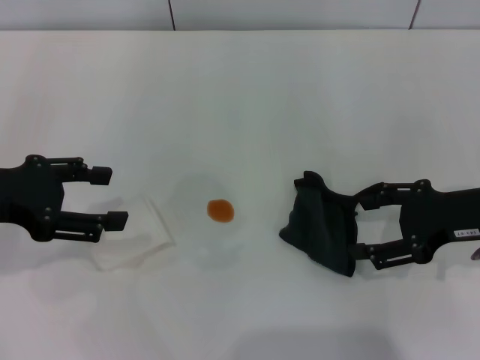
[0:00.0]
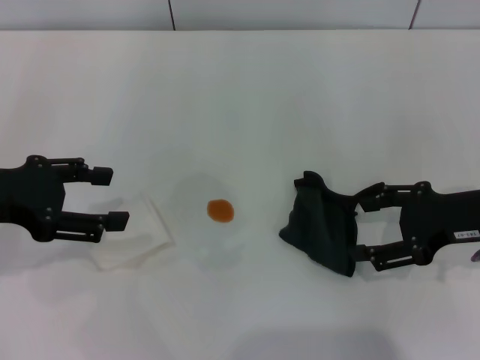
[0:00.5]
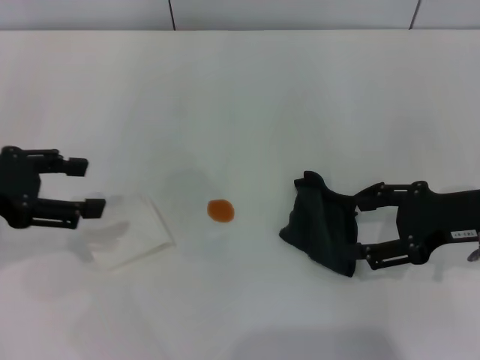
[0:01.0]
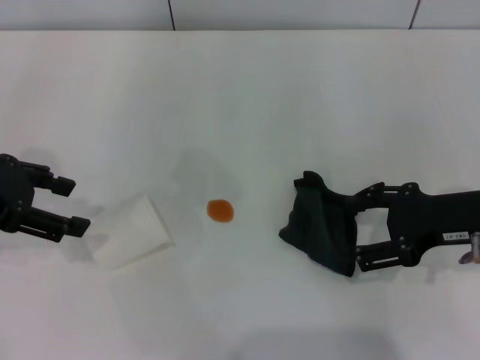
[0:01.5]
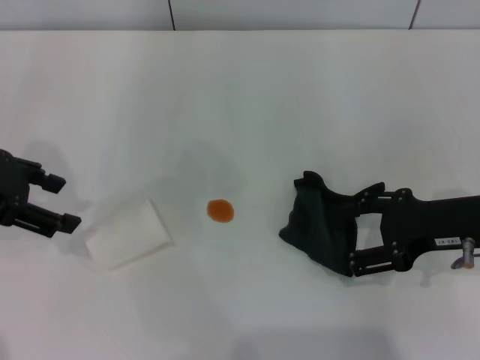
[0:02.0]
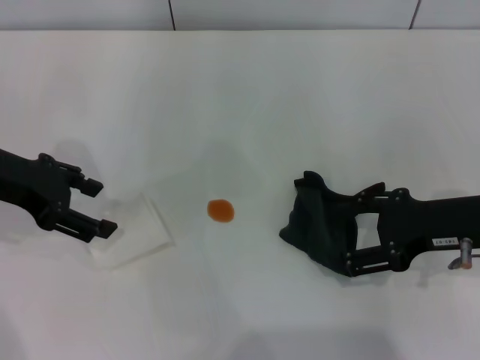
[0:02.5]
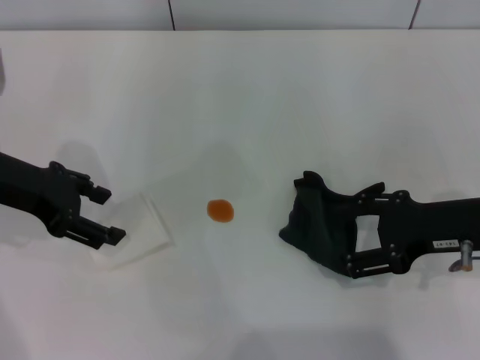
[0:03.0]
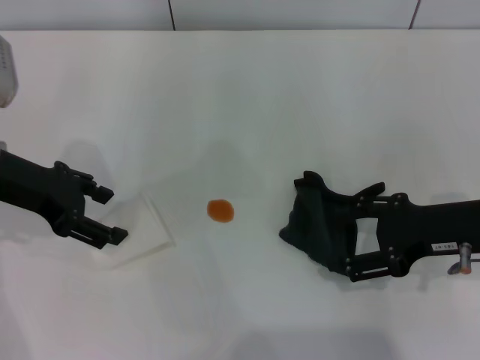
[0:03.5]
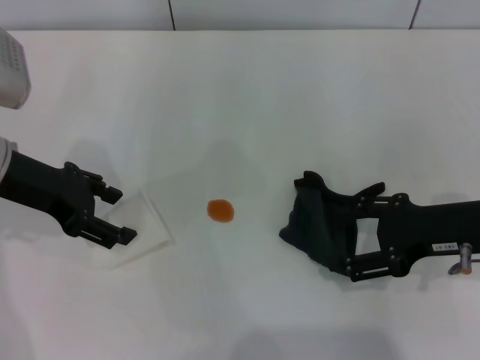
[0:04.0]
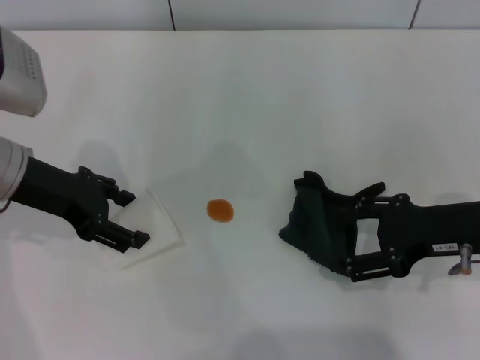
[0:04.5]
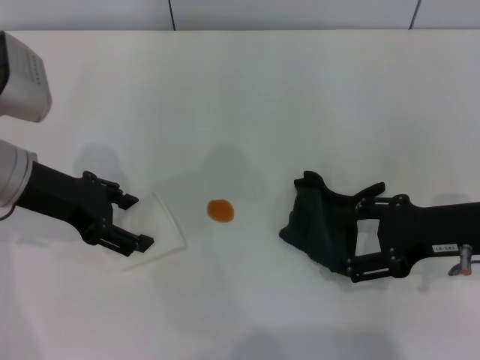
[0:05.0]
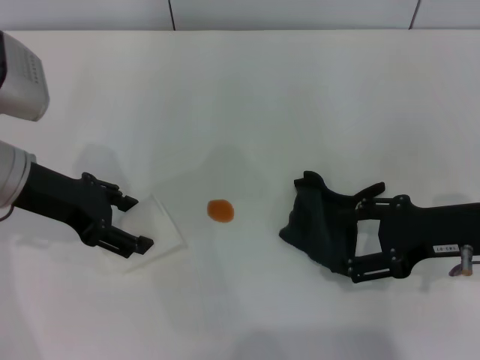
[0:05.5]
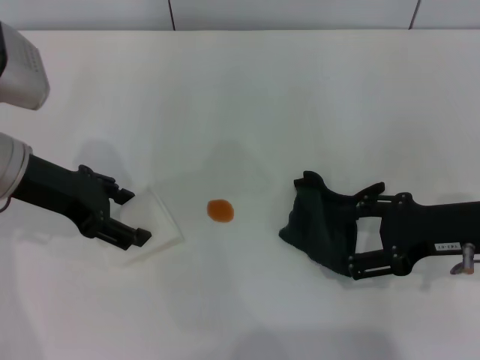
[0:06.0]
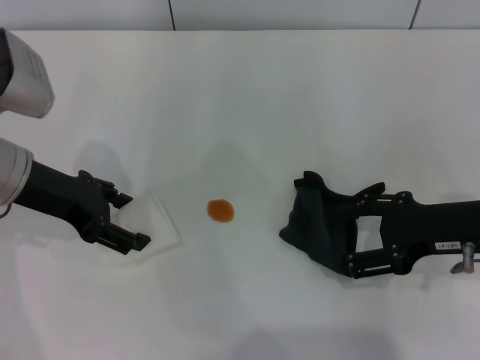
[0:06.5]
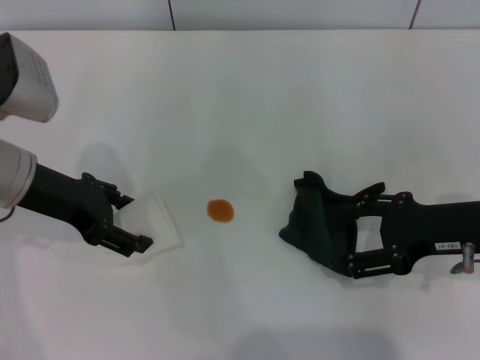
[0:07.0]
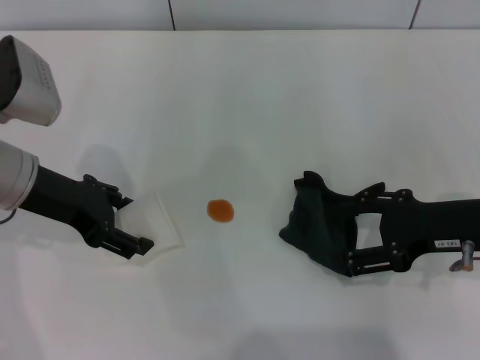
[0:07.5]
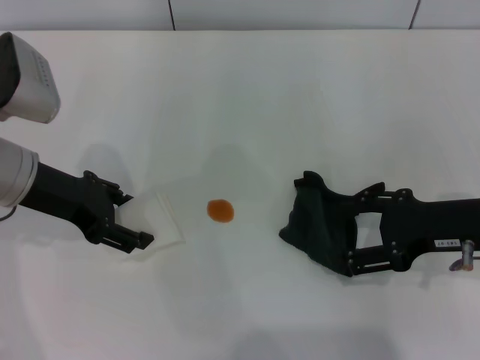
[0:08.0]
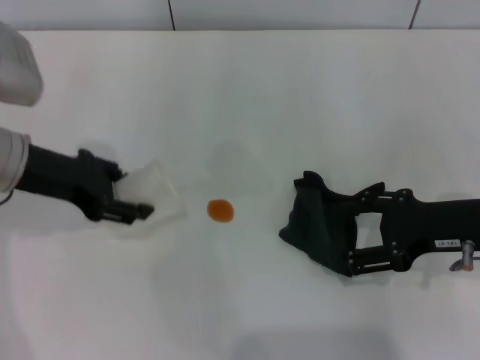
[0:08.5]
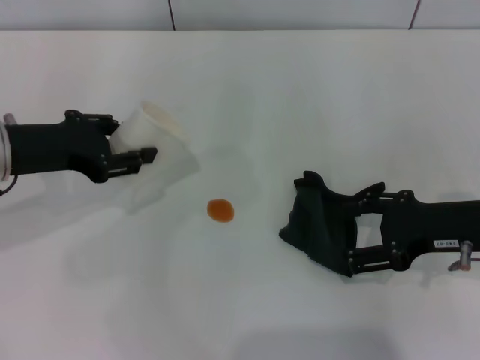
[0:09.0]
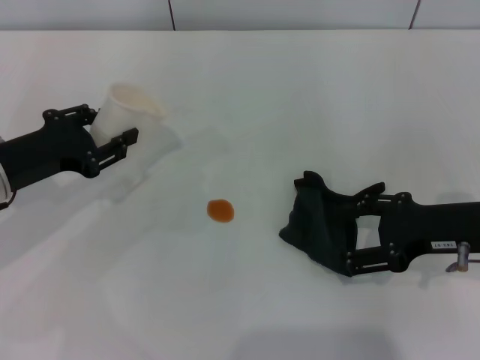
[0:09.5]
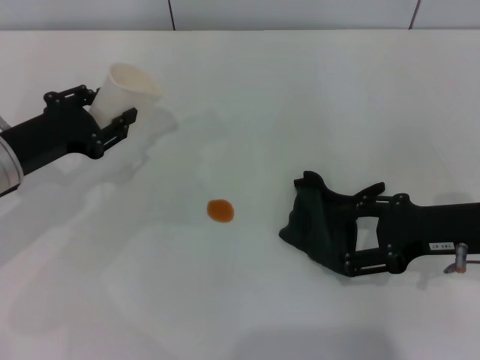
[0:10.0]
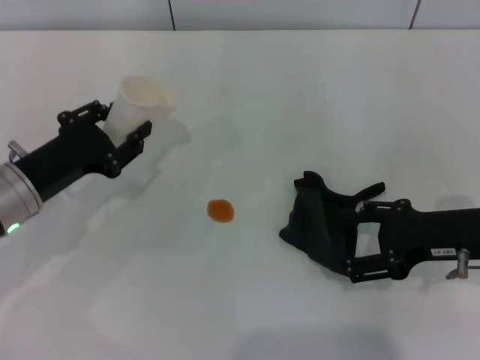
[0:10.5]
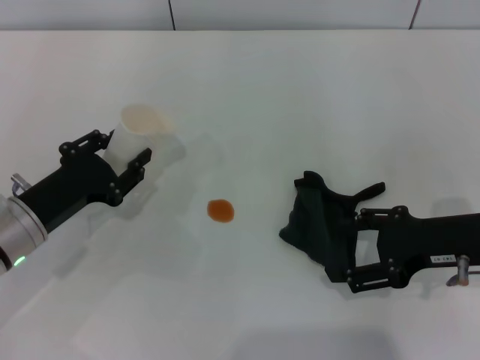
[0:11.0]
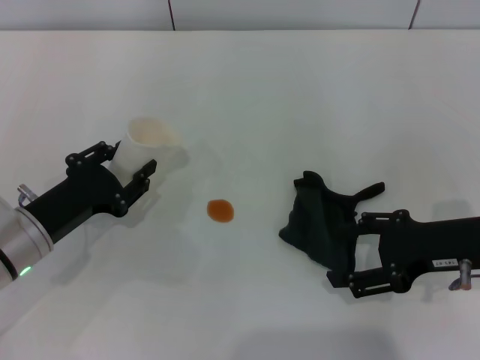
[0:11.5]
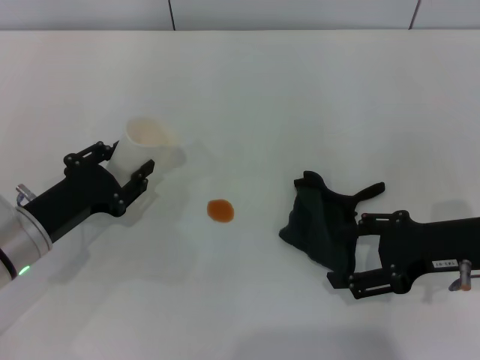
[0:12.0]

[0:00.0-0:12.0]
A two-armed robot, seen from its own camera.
Step, 0:00.0 to 0:05.5: Grasp the paper cup with the left gripper.
0:00.0 to 0:02.0: The left gripper moves about 5 cm.
0:02.0 to 0:04.0: The left gripper is displaced to the right by about 5 cm.
0:04.0 to 0:06.0: There are only small adjustments of the grippers.
0:06.0 to 0:08.0: Both grippers stay about where they are.
0:08.0 to 0:10.0: The left gripper heads downward, covering approximately 5 cm, and closes its fingers.
0:10.0 to 0:12.0: The left gripper travels backward and downward by roughly 10 cm.

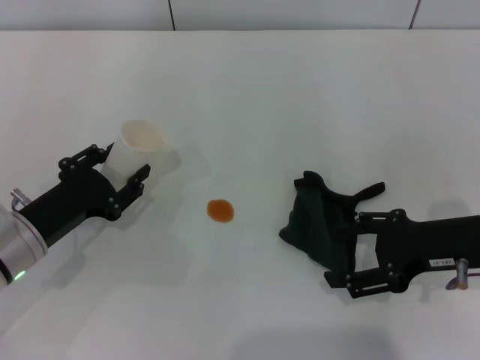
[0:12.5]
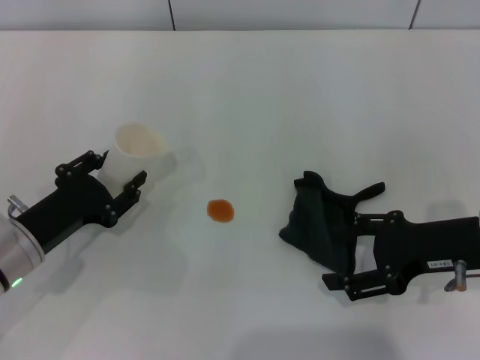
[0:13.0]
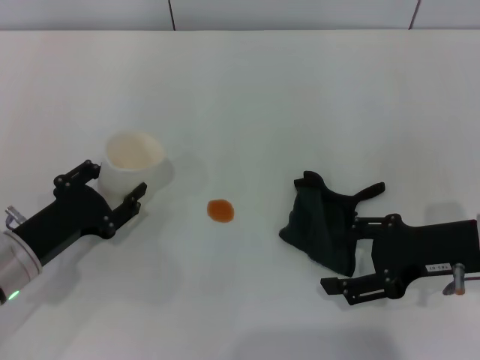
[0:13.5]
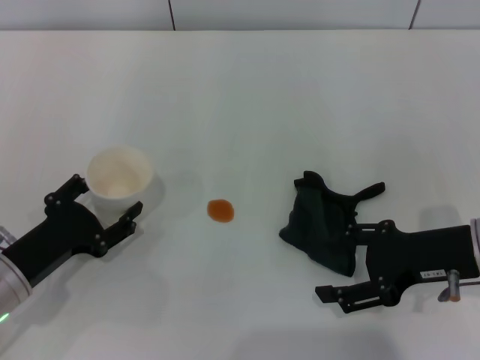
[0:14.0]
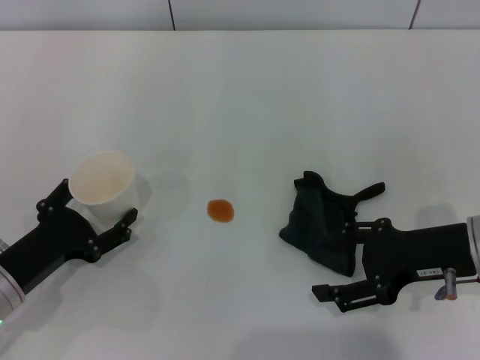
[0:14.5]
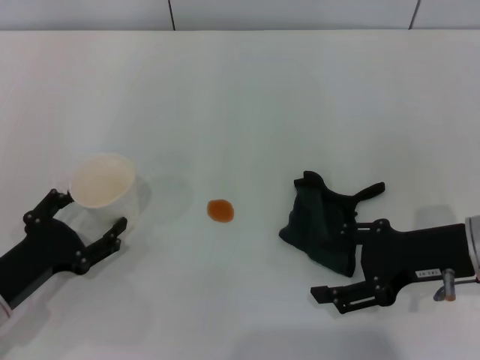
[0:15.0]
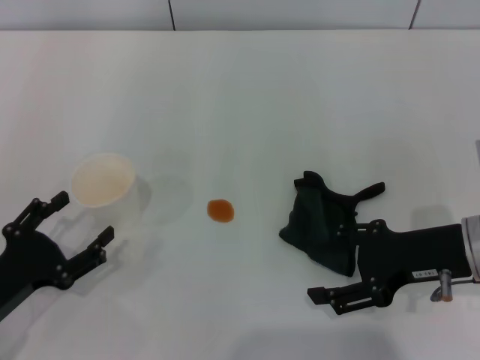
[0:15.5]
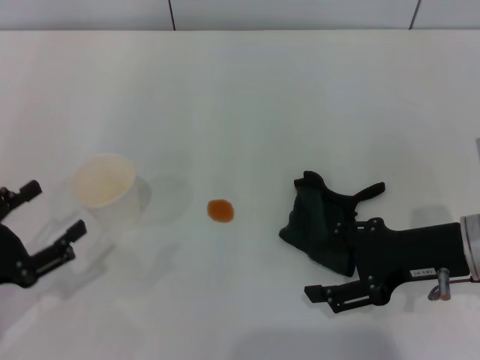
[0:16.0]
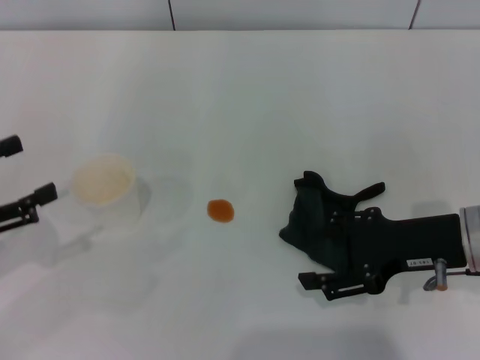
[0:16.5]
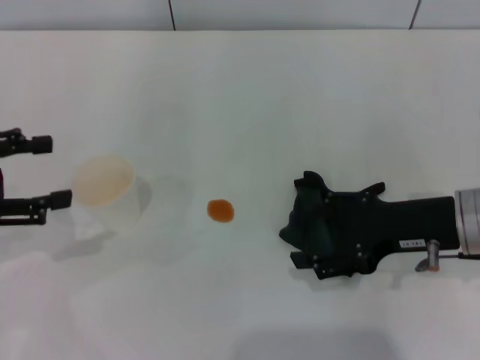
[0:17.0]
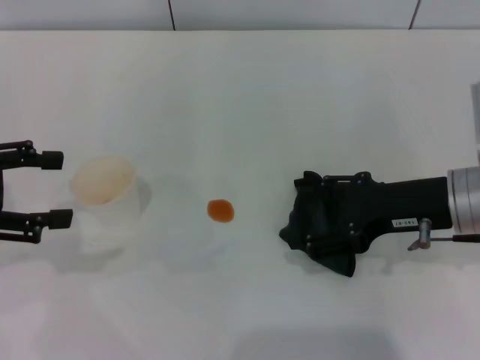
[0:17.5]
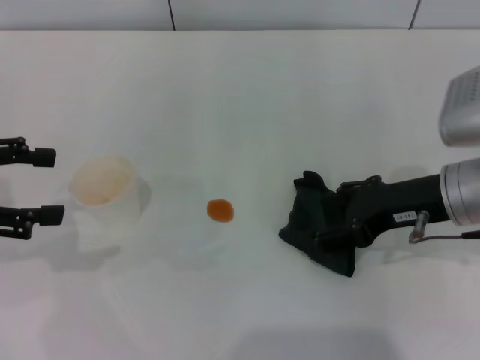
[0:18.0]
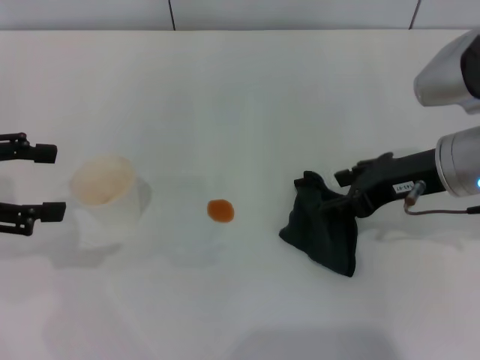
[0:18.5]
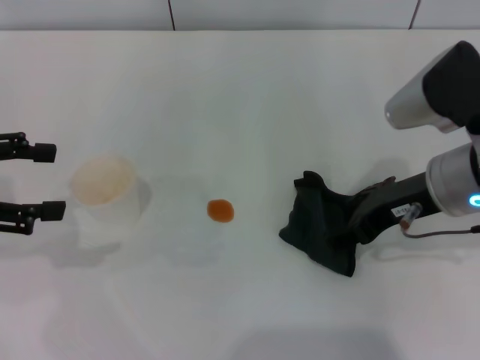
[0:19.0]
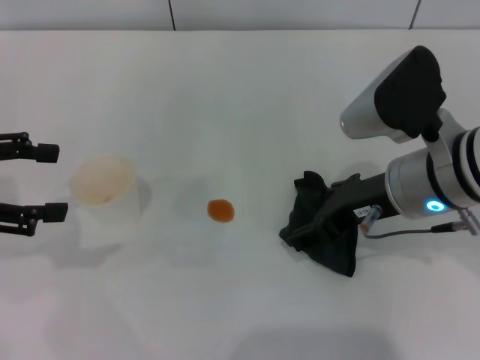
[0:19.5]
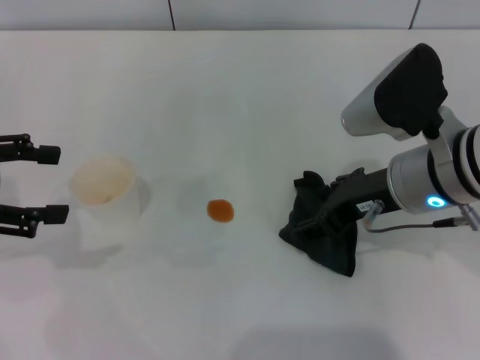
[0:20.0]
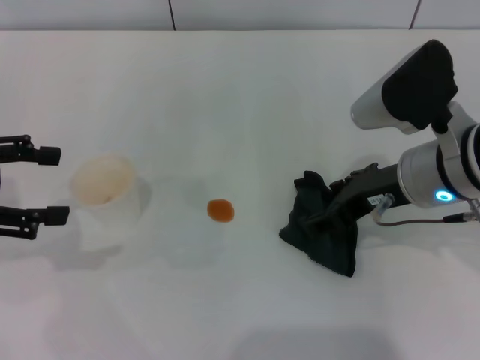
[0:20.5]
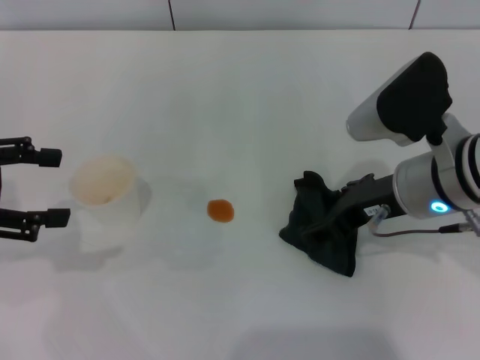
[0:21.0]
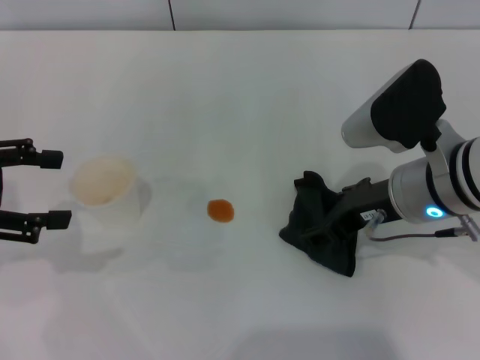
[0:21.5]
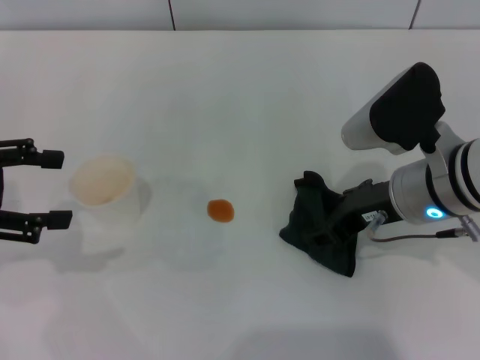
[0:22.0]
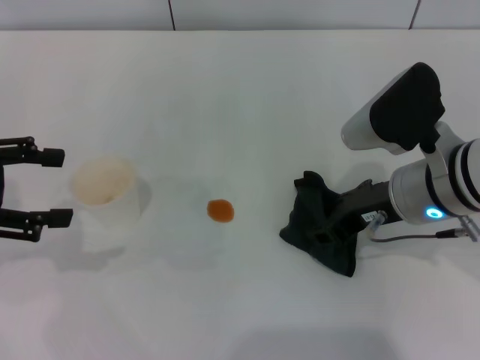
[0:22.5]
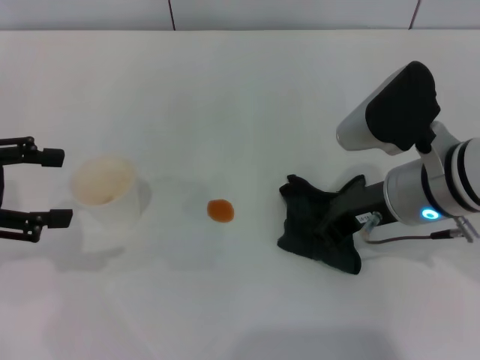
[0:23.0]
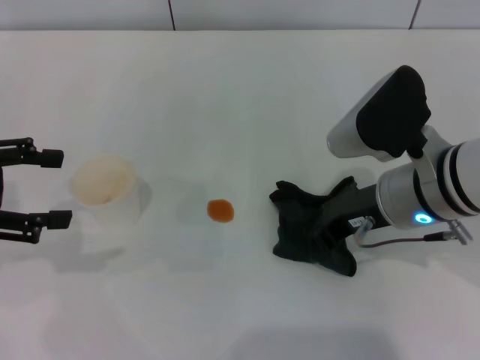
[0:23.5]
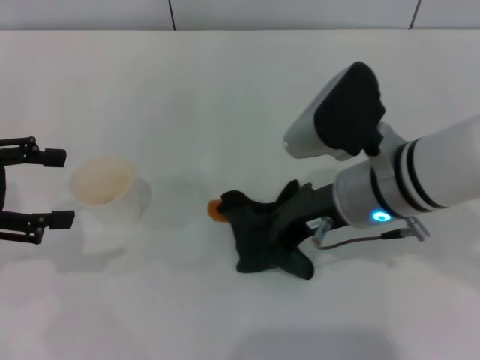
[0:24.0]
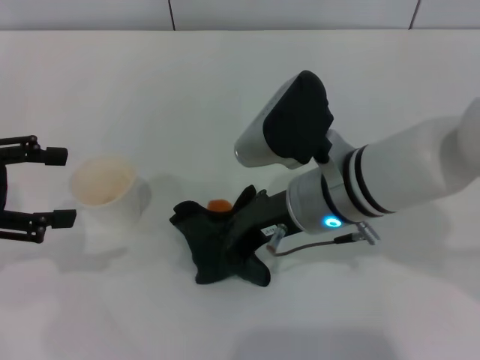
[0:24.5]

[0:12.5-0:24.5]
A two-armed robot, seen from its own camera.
Step, 0:12.5 to 0:15.0: Stand the paper cup upright with the left gripper.
Step, 0:15.5 to 0:22.0: Grasp the rag with the right gripper.
0:12.5 to 0:14.5: The left gripper shifts by about 5 cm, and opens its fingers.
0:14.5 to 0:16.5: The left gripper heads upward and to the left, covering approximately 15 cm.
0:16.5 to 0:18.5: The left gripper heads upward and forward, covering some 10 cm. Meanwhile the right gripper changes place by about 5 cm.
0:18.5 to 0:20.5: There are only small adjustments of the grippers.
0:20.5 to 0:22.5: The right gripper closes up.
0:22.5 to 0:24.5: The right gripper travels to the left by roughly 10 cm, and closes up.

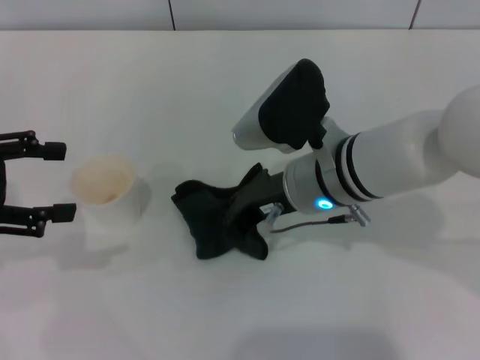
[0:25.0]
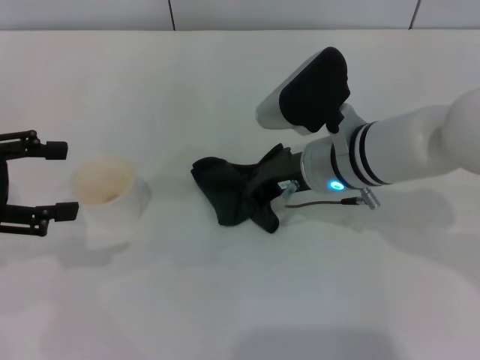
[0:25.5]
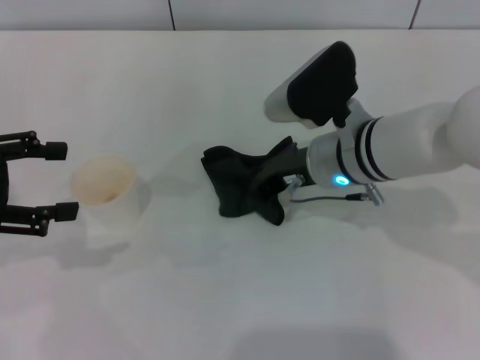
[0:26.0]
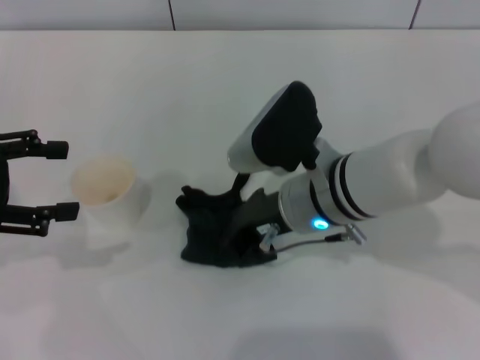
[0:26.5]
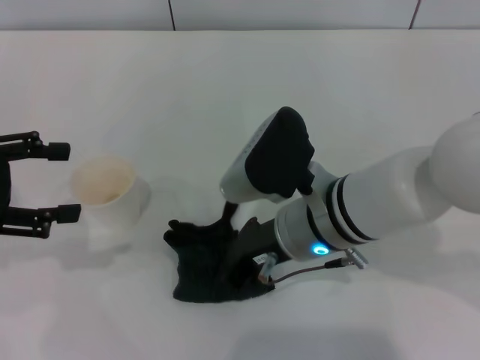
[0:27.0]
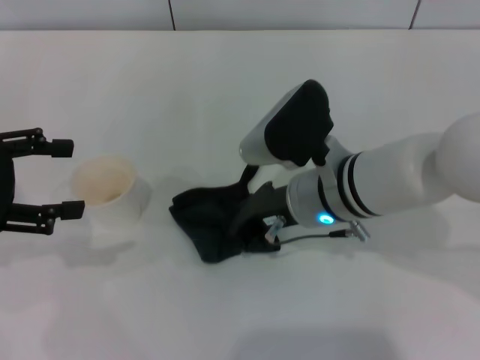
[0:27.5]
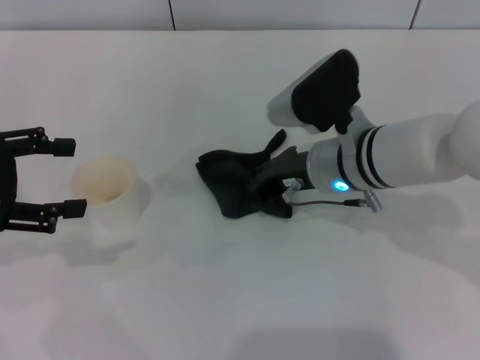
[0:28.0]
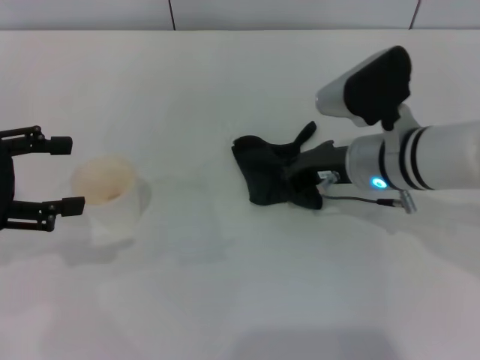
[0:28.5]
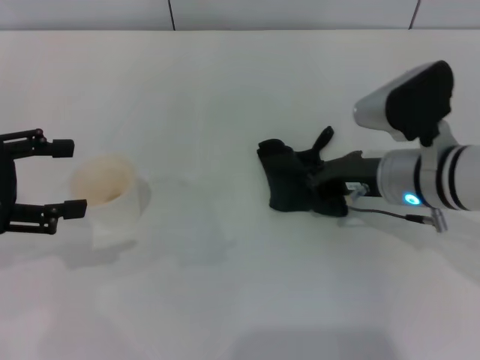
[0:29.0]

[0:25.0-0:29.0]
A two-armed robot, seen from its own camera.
Step, 0:25.0 to 0:28.0: Wipe the stains off the table with the right gripper.
0:25.0 to 0:27.0: There are only small adjustments of the grippers.
0:27.0 to 0:29.0: The right gripper heads to the right, covering roughly 10 cm.
